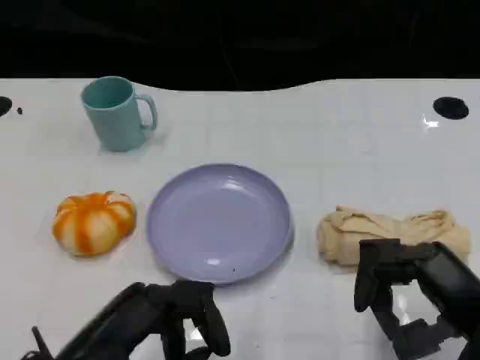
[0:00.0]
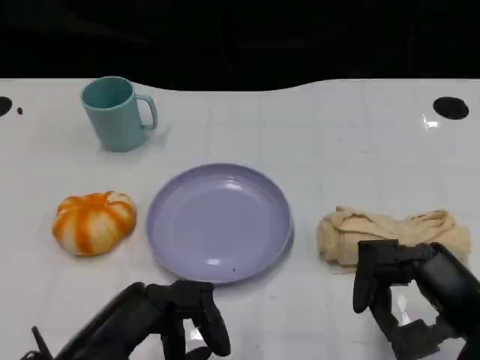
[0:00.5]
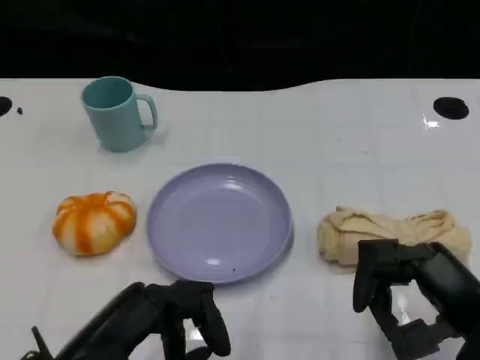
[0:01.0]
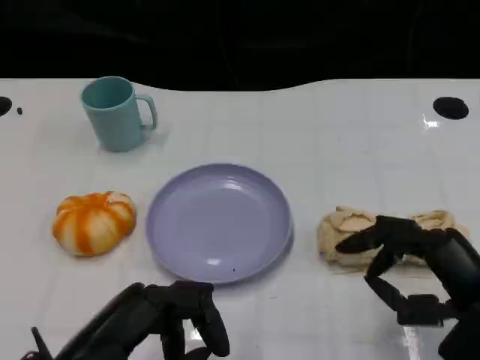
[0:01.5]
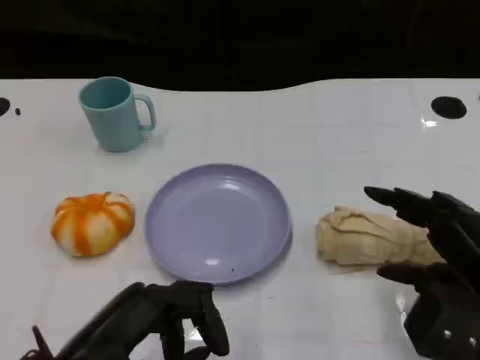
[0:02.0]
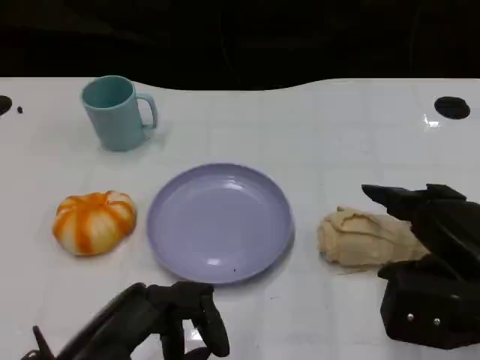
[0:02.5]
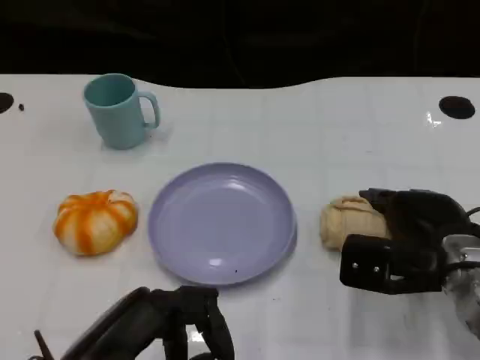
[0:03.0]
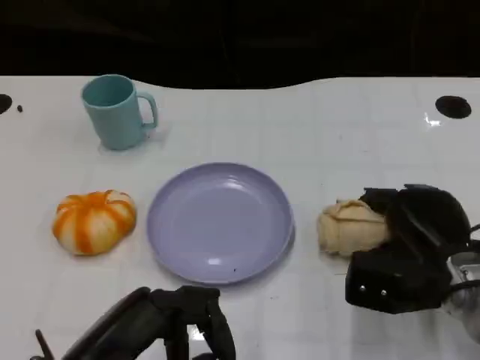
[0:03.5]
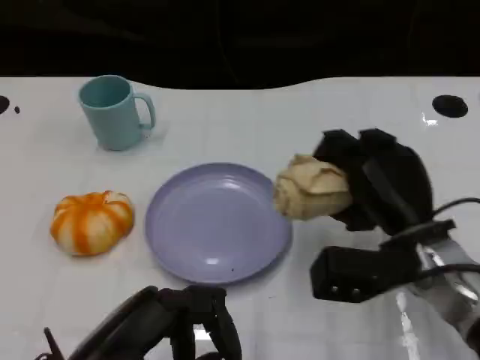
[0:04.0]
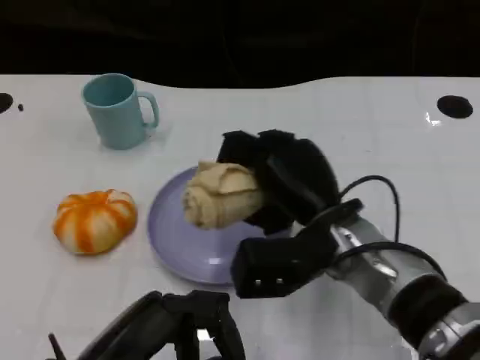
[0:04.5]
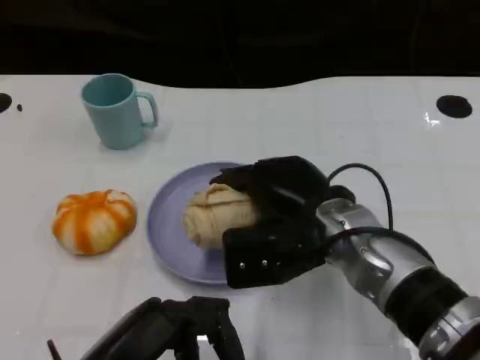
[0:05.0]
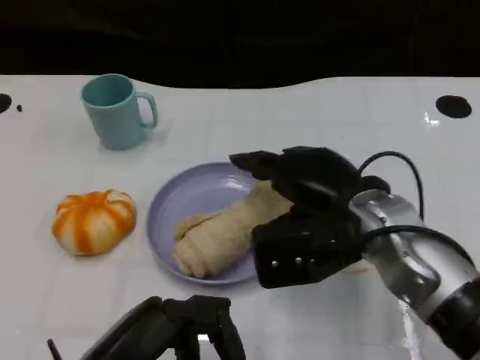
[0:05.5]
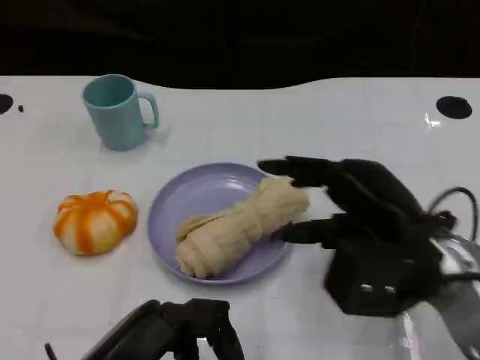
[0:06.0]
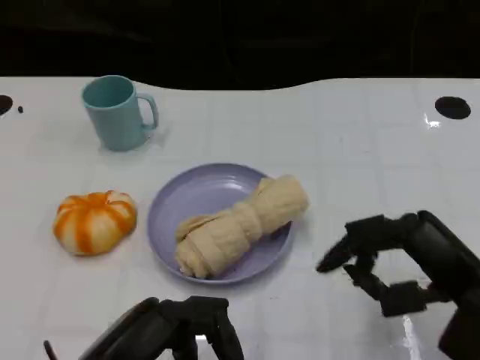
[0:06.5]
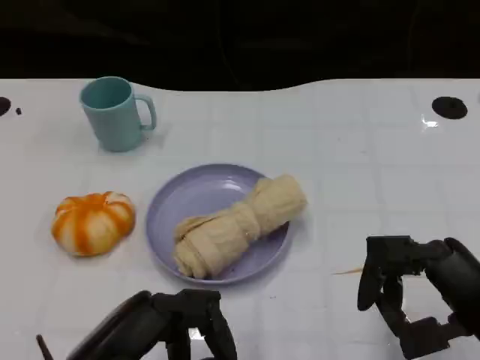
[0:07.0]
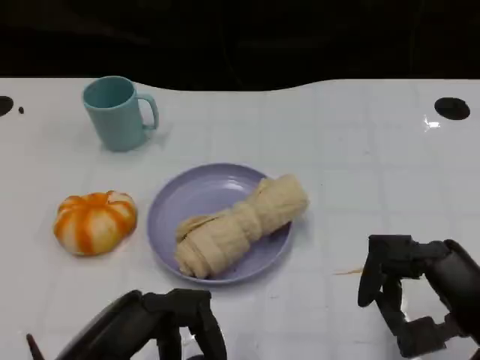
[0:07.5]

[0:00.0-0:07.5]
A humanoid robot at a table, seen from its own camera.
Task of the whole recording: Grasp the towel on the left side of the plate with the left hand and place it into the plate.
0:02.0 to 0:04.0: The right hand heads to the left and forward, covering about 10 cm.
0:04.0 to 0:05.5: The right hand is displaced upward by roughly 5 cm.
0:05.5 to 0:07.5: The right hand goes approximately 15 cm backward and to the right.

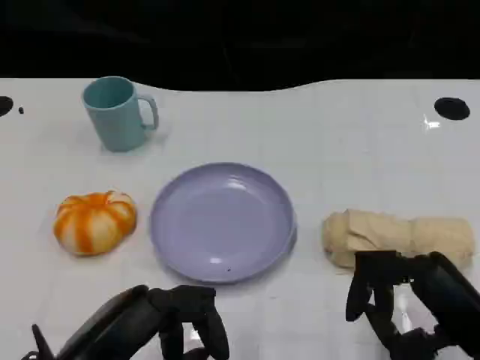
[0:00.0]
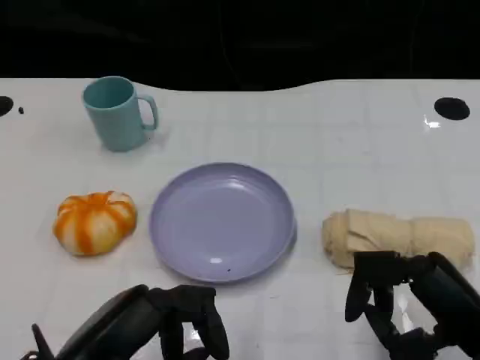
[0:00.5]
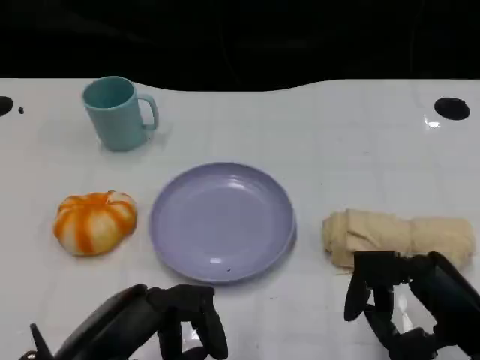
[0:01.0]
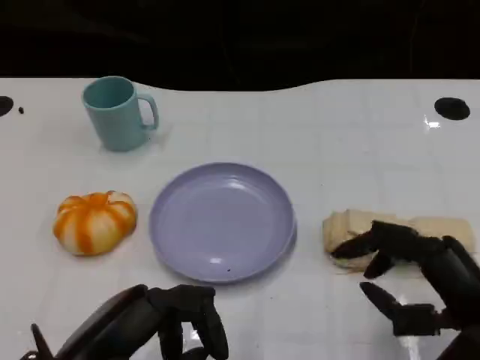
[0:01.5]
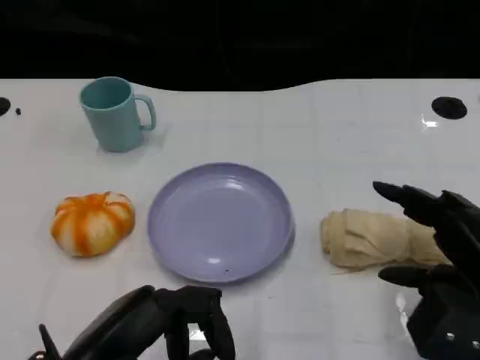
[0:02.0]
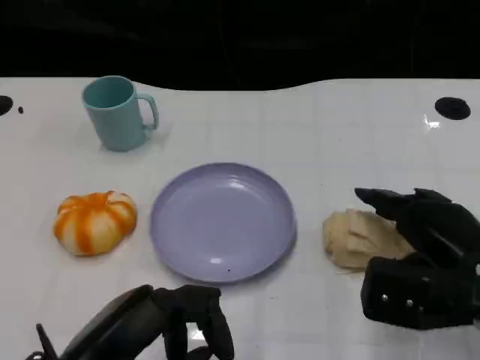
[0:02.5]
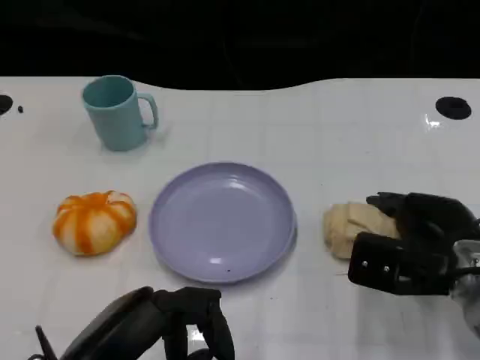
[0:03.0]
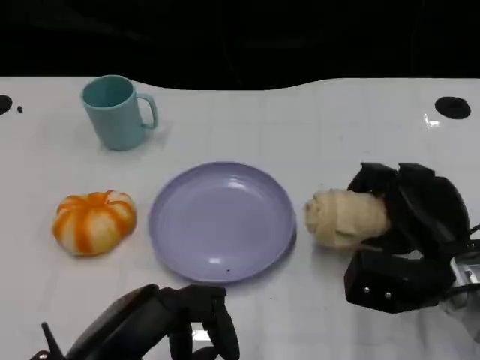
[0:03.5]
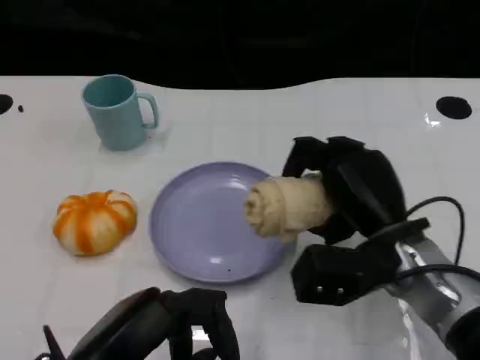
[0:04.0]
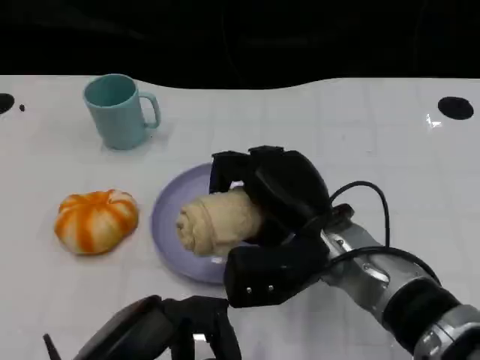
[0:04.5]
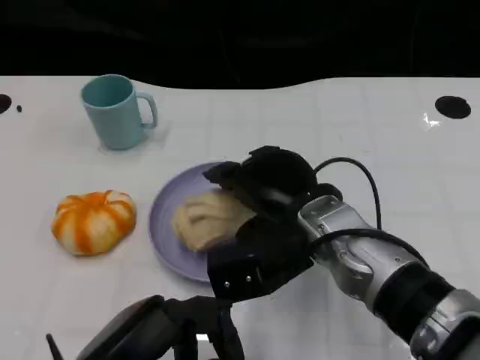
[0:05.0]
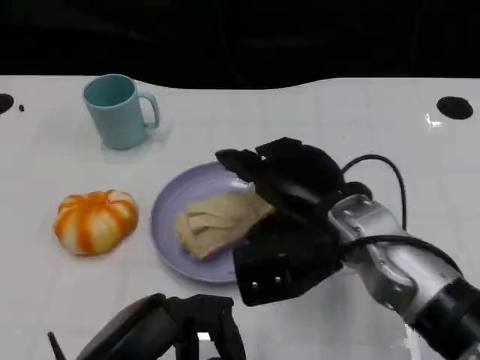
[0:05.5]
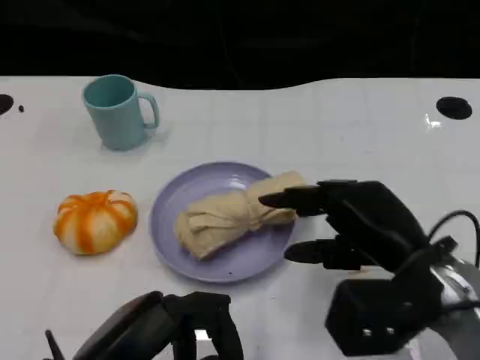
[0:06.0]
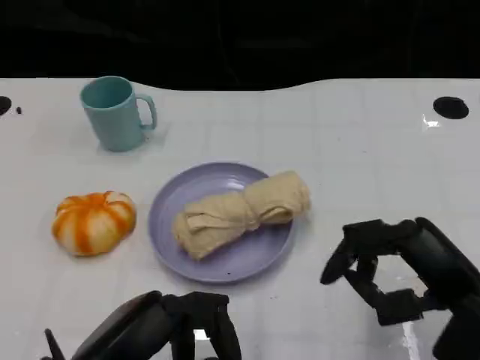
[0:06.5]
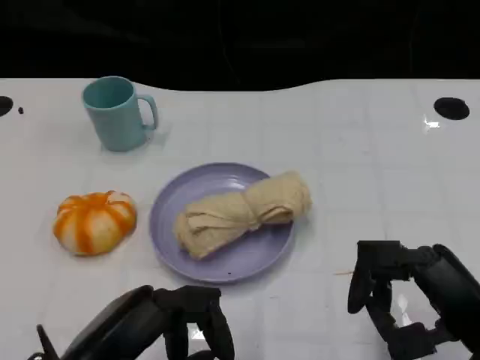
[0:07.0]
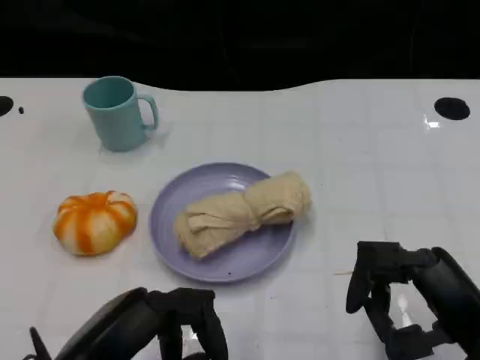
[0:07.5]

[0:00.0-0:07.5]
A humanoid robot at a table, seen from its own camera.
Task of the whole recording: Grasp the towel on the left side of the plate with the left hand and place it into the plate.
0:02.0 to 0:04.0: The right hand moves to the left and forward, approximately 15 cm.
0:04.0 to 0:05.5: The right hand ends up approximately 5 cm from where it was.
0:05.5 to 0:07.5: The right hand goes about 15 cm to the right and backward.
